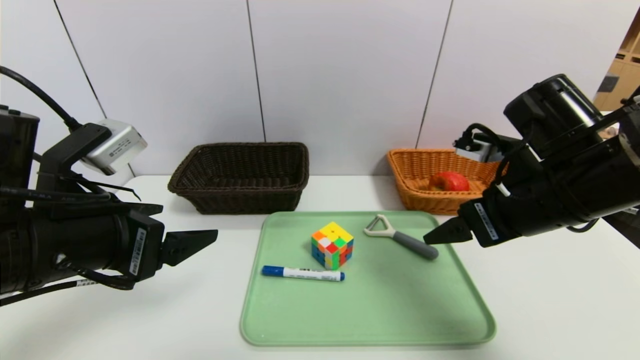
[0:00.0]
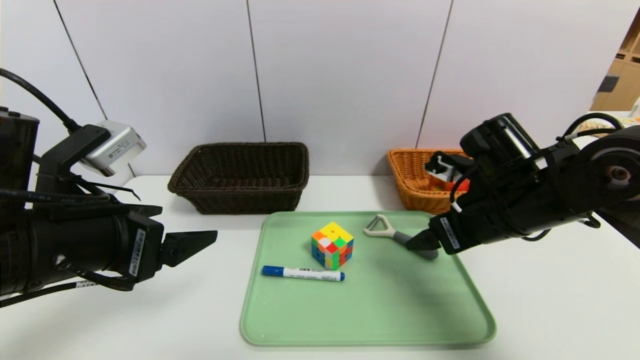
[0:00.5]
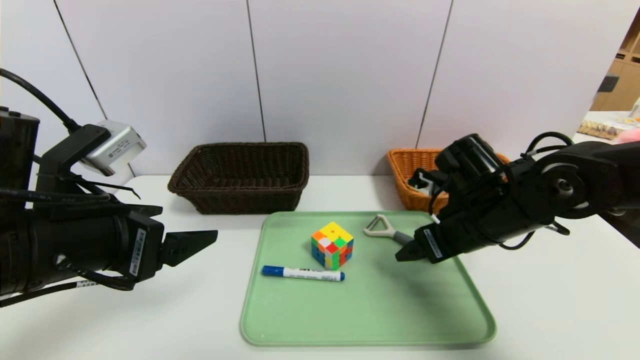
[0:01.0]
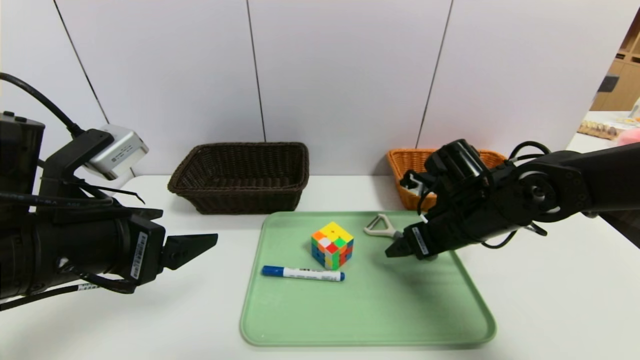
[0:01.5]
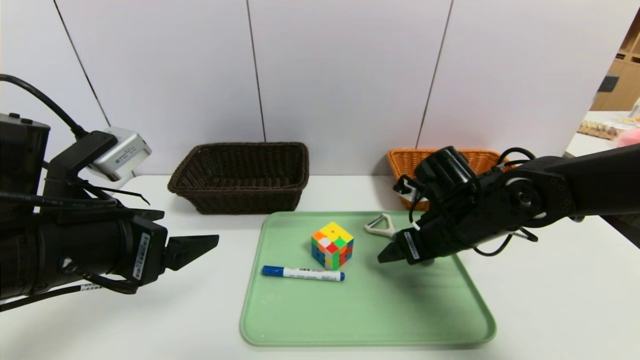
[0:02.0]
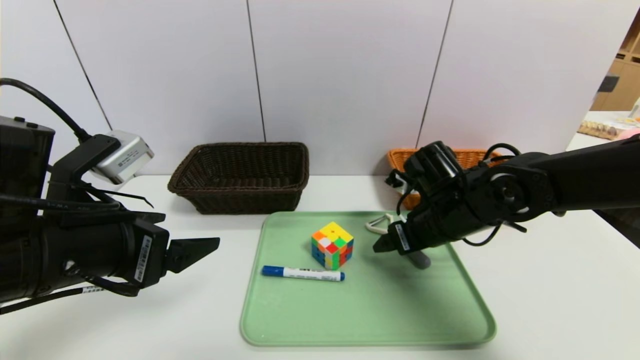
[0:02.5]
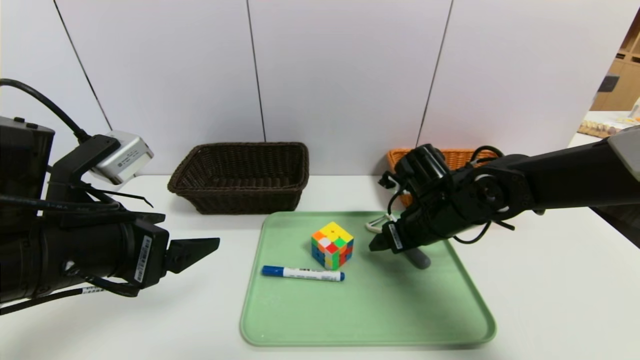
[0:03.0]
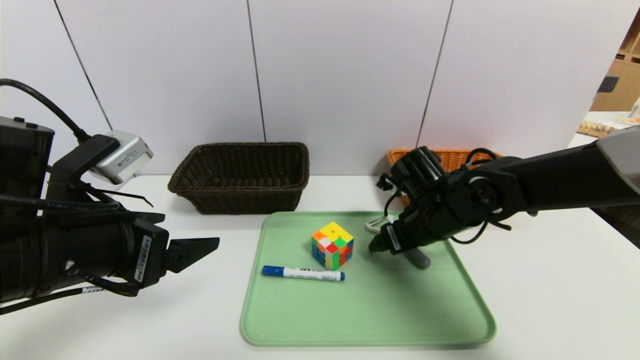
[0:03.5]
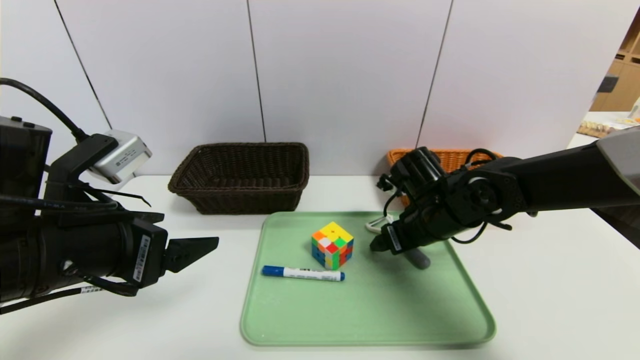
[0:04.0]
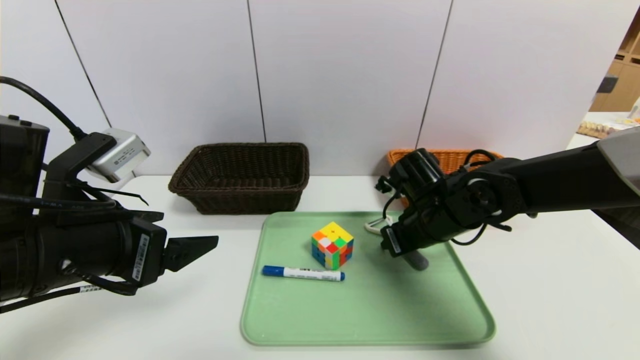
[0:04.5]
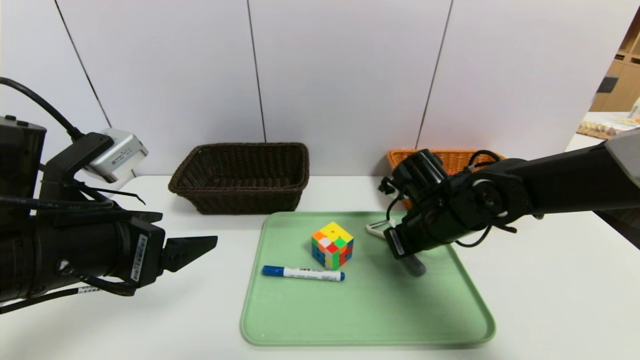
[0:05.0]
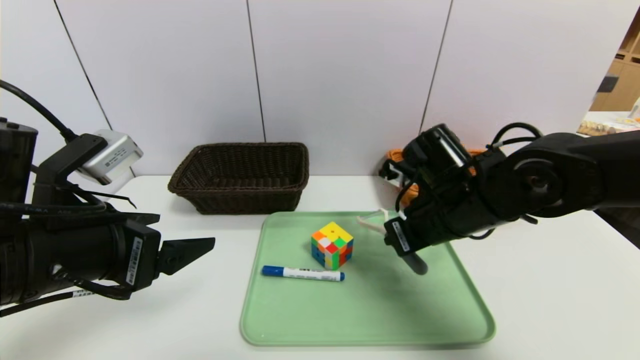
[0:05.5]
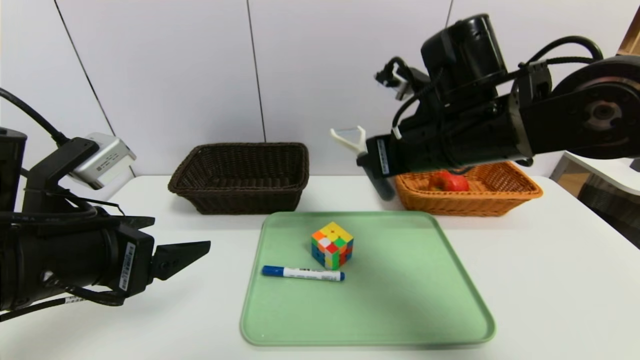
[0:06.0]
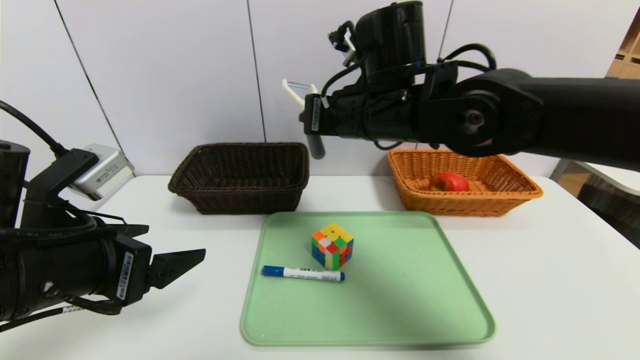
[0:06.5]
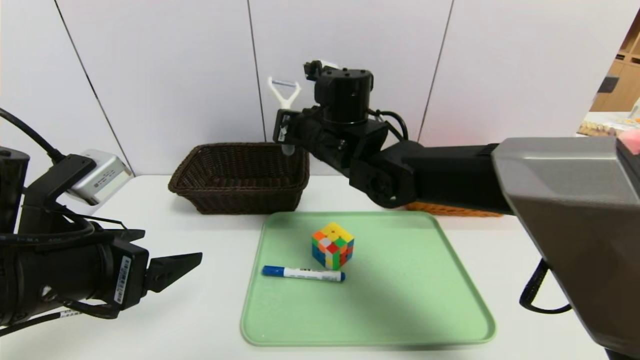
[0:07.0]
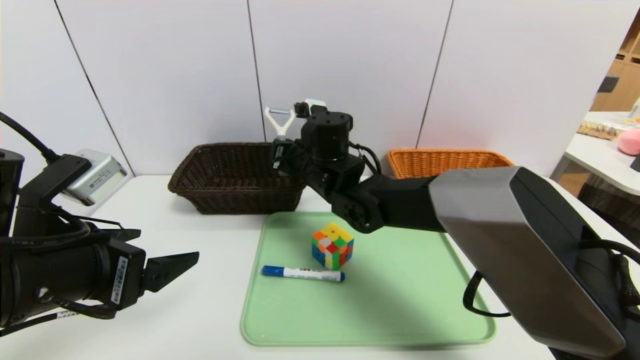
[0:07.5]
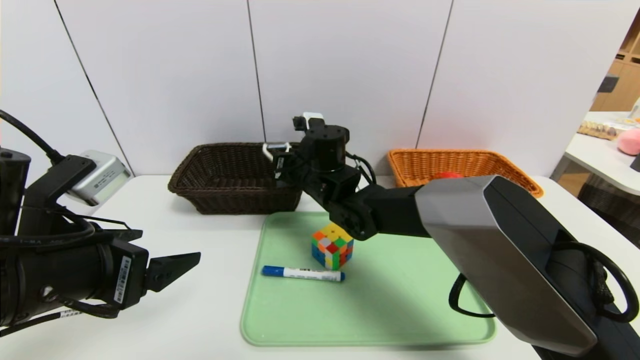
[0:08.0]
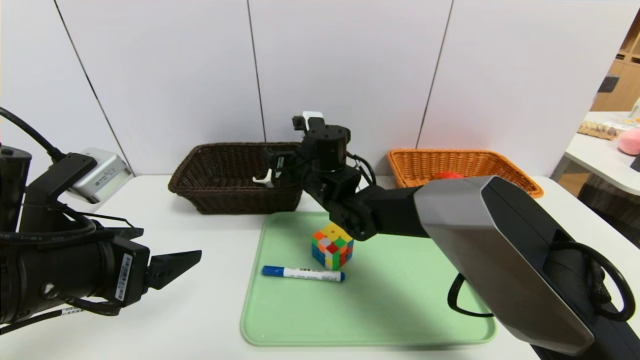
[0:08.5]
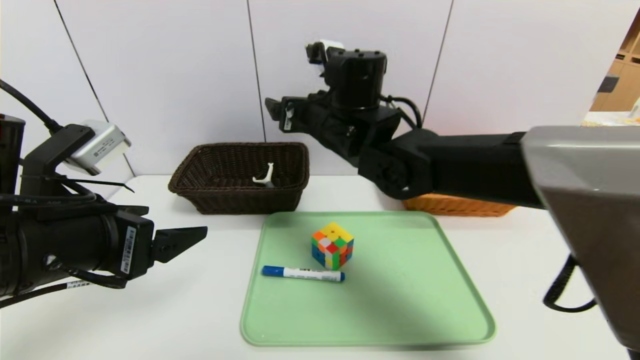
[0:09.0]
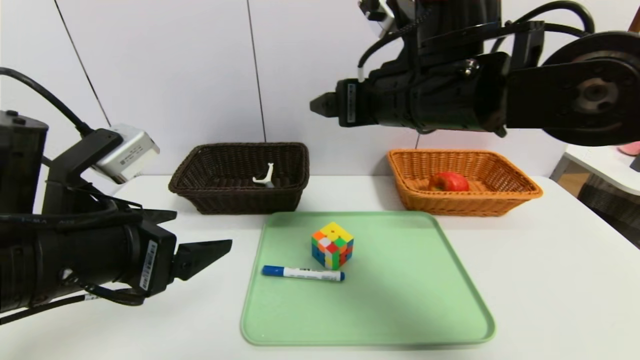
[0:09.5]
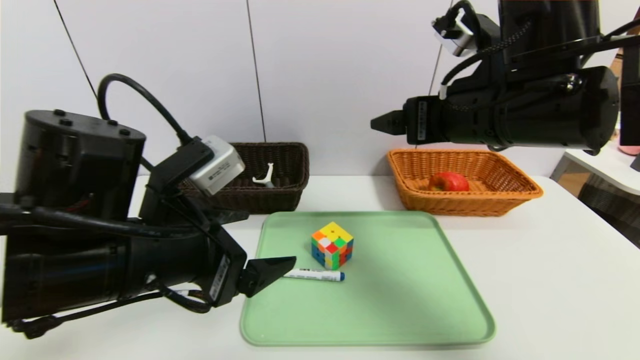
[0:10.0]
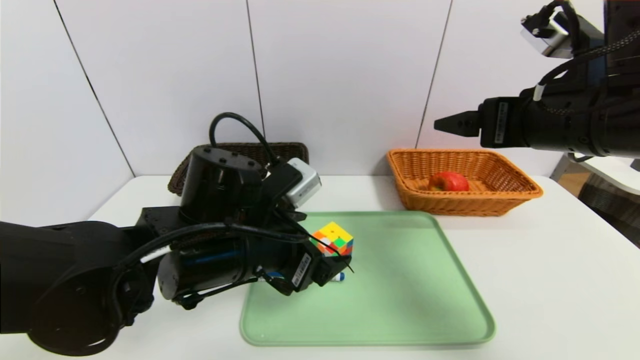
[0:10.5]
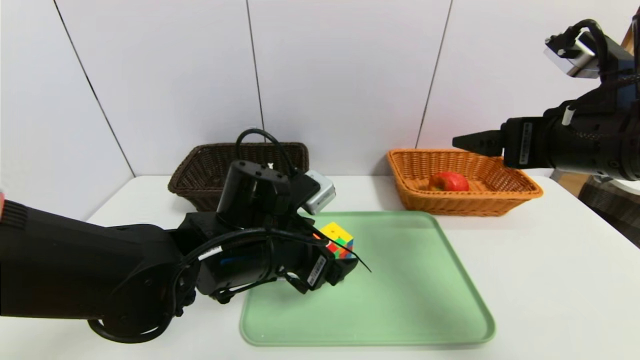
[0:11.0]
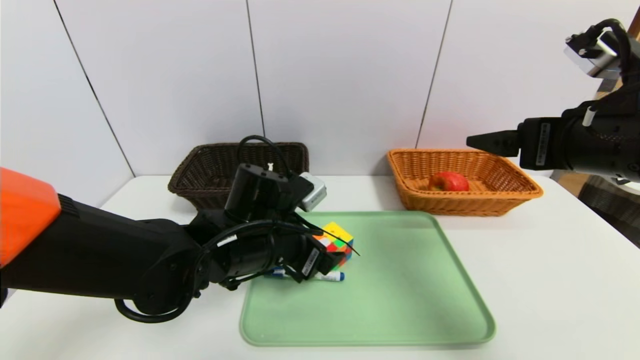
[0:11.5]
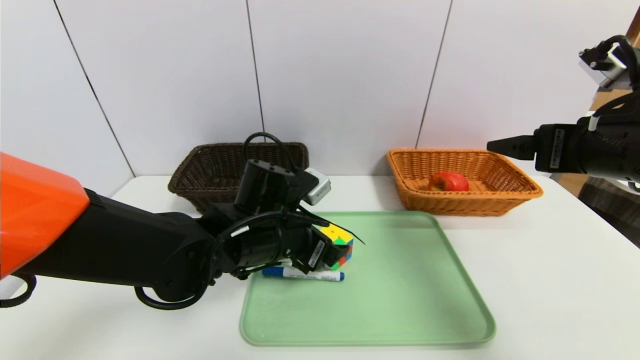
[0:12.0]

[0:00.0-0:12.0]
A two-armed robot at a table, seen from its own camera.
Task of the whole recording: place the food in the right basket with the right gripper, and place the non food items in the left basket with the left gripper.
0:00.0 to 0:02.0: The right gripper heads downward and forward, covering roughly 10 cm.
0:02.0 to 0:04.0: The grippers make only small movements.
0:04.0 to 0:06.0: The right gripper shifts some 15 cm upward, and closes its fingers.
0:06.0 to 0:08.0: The right gripper heads to the left, downward and forward, covering roughly 20 cm.
0:08.0 to 0:10.0: The right gripper heads to the right, upward and backward, covering about 25 cm, and opens its fingers; the left gripper travels to the right by about 10 cm.
0:10.0 to 0:12.0: The right gripper moves to the right, some 10 cm. The left gripper moves forward, downward and to the right, about 15 cm.

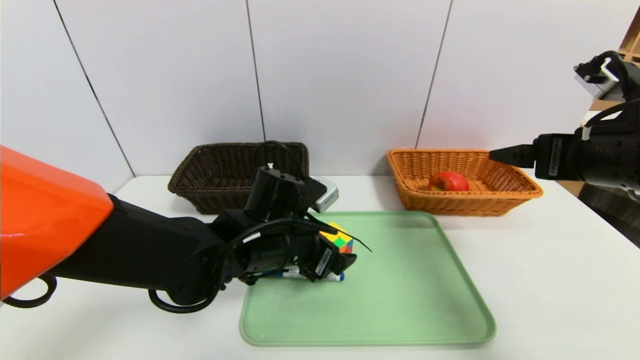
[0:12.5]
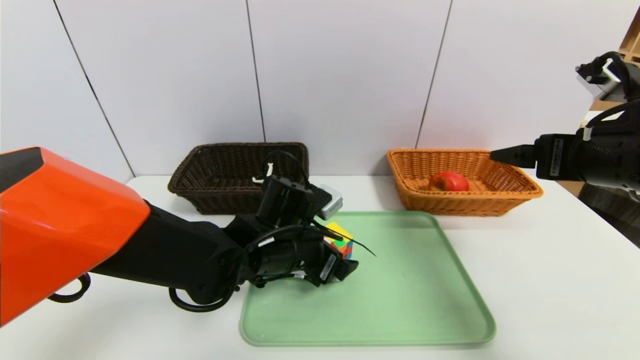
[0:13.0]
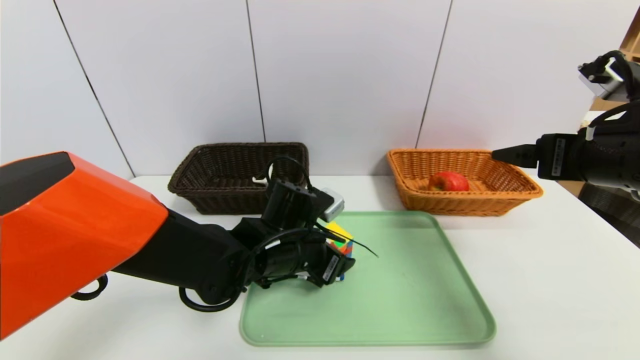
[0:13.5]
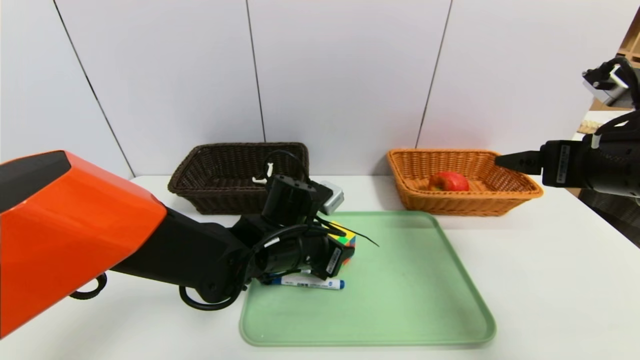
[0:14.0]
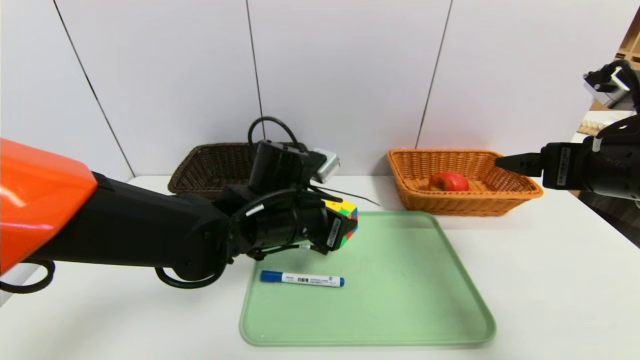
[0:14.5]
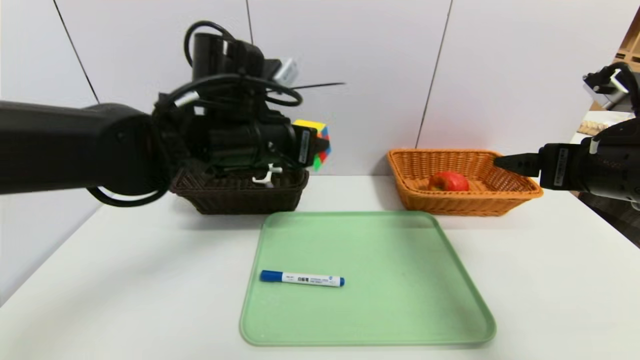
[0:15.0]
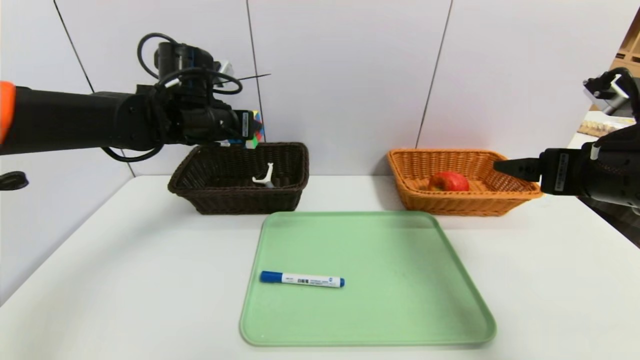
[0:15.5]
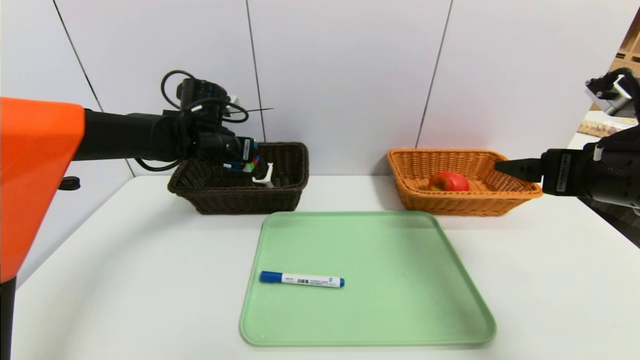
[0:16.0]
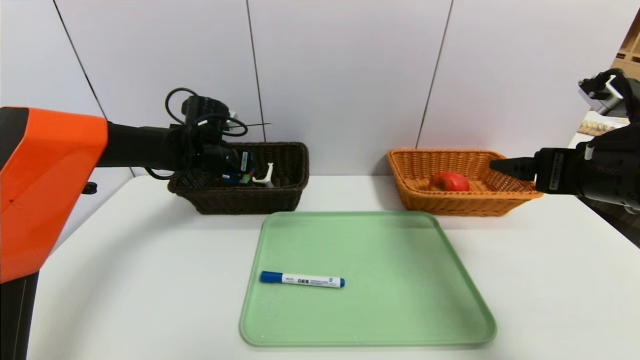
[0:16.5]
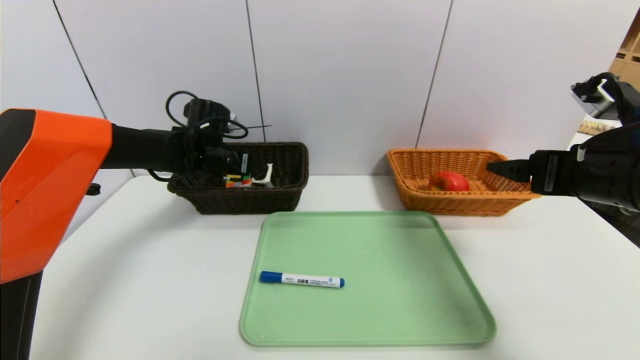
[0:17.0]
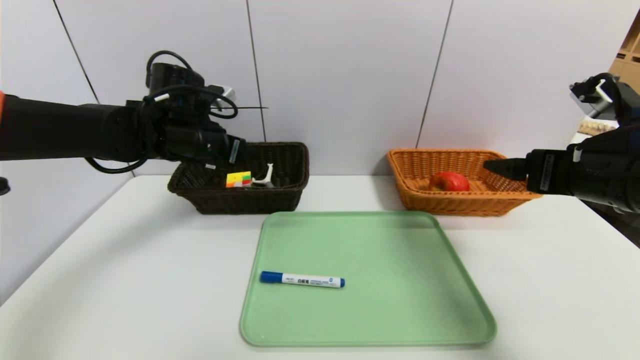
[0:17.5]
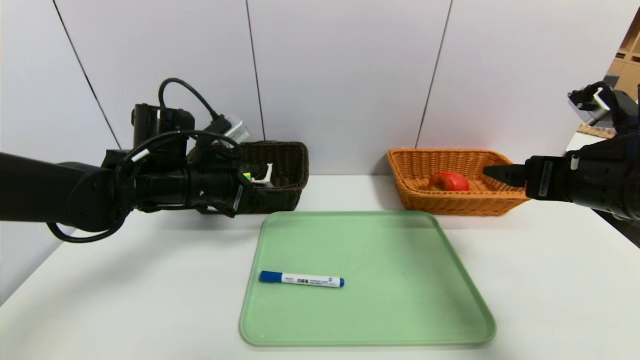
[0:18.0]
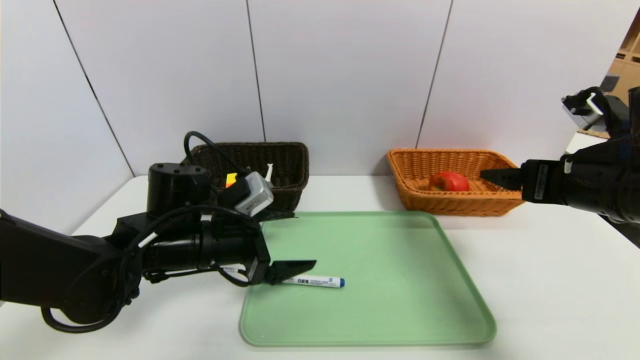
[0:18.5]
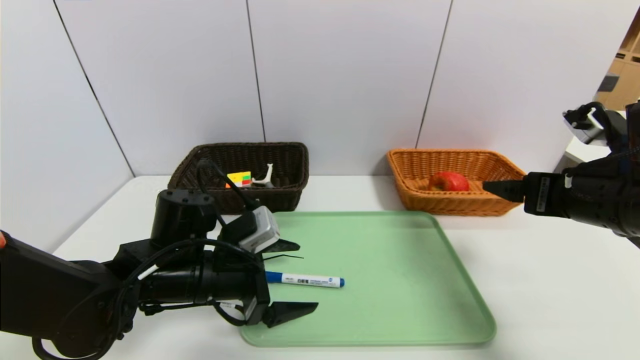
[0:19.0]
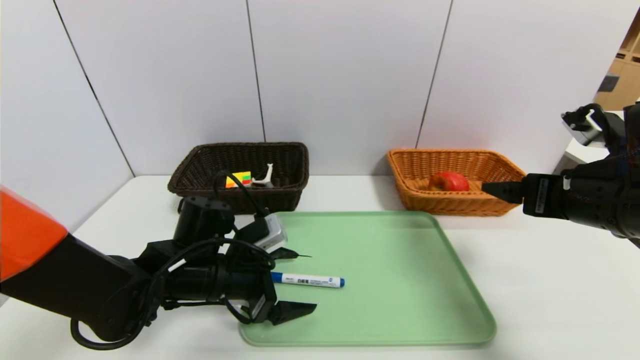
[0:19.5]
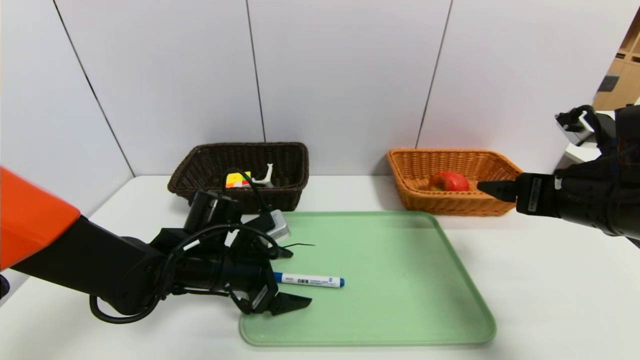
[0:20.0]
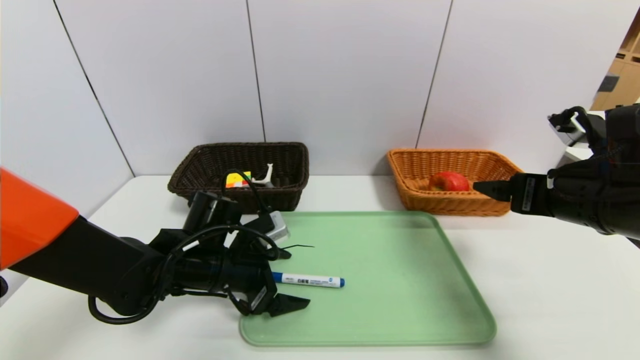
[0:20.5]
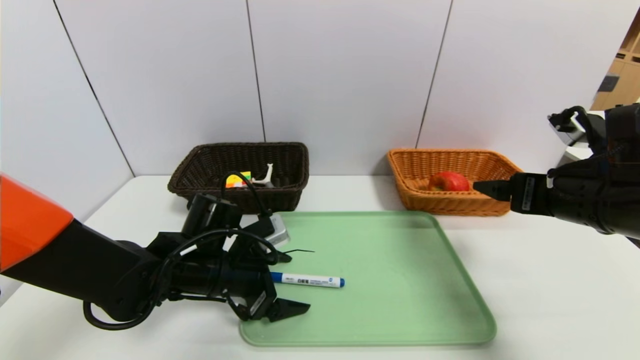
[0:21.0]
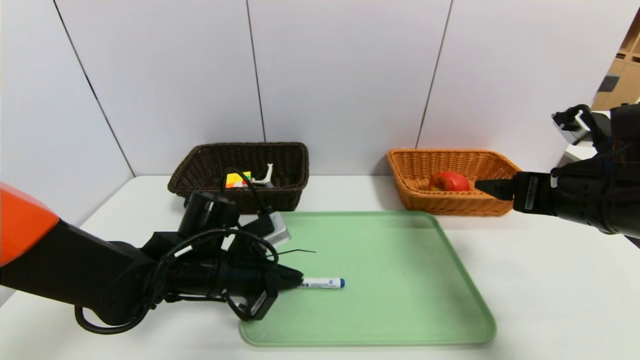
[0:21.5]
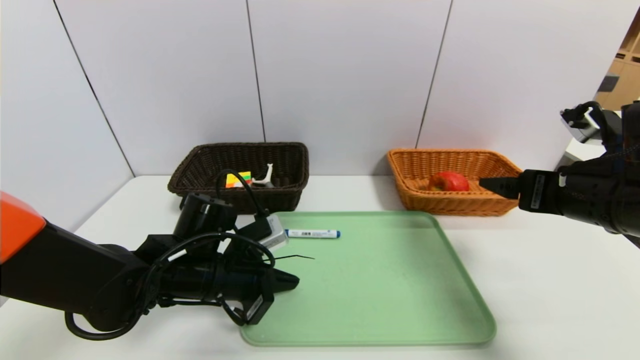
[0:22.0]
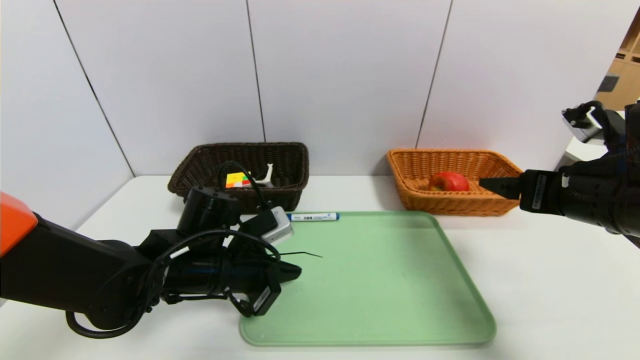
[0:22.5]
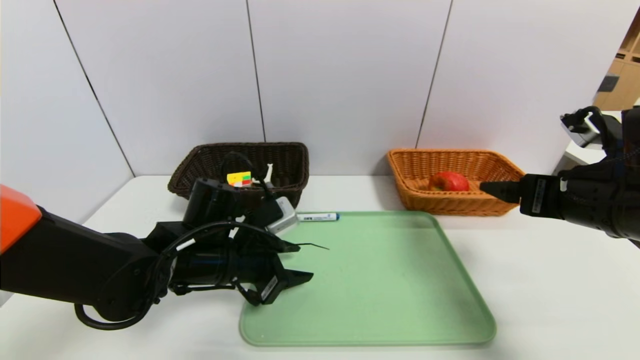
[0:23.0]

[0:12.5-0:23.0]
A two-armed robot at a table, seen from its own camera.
Task of the whole recording: place the food in the right basket with the right gripper, and place the non food items in the left basket with the left gripper.
Step, 0:12.5 to 0:17.0: Grasp the rubiks cube and put it in the left basket.
0:12.5 to 0:14.5: The left gripper closes up.
0:14.5 to 0:16.5: The left gripper is displaced forward and to the left by about 20 cm.
0:16.5 to 0:19.0: The left gripper moves backward, roughly 20 cm, and opens up.
0:19.0 to 0:21.0: There are only small adjustments of the grippers.
0:21.0 to 0:23.0: The left gripper closes up.
